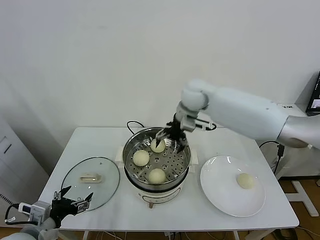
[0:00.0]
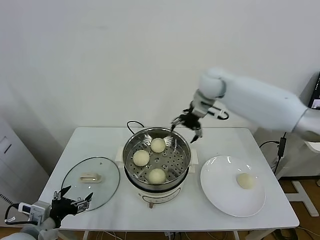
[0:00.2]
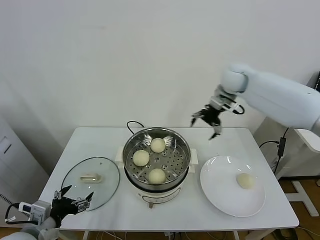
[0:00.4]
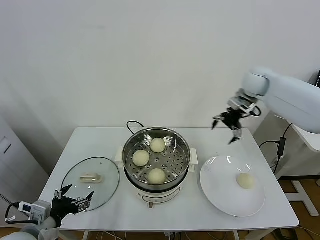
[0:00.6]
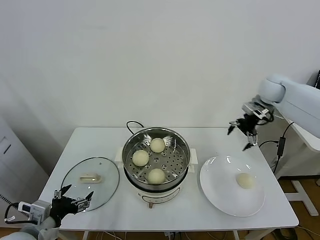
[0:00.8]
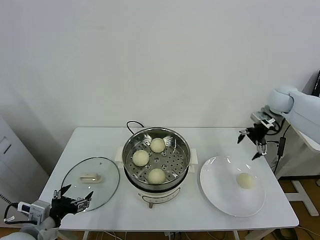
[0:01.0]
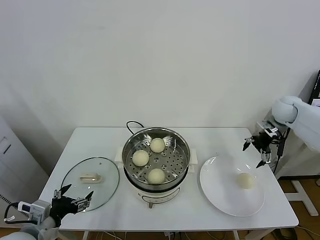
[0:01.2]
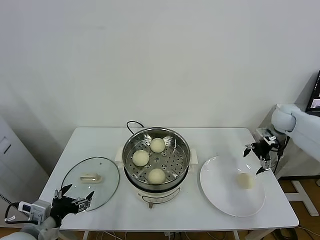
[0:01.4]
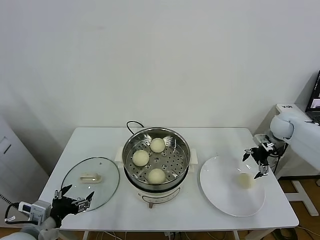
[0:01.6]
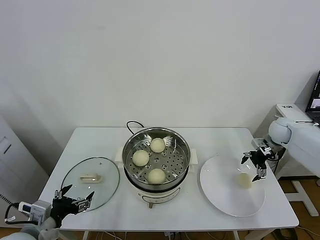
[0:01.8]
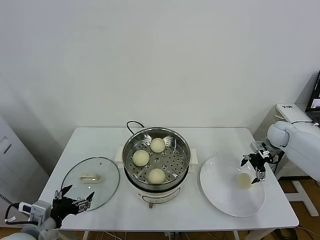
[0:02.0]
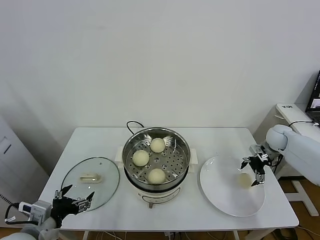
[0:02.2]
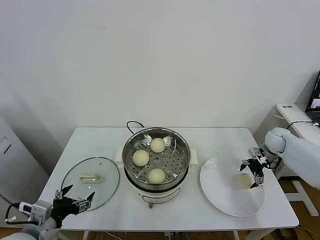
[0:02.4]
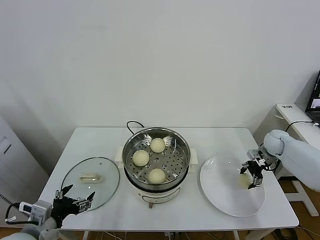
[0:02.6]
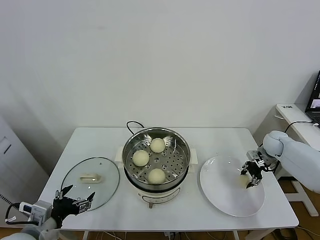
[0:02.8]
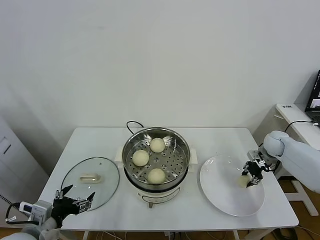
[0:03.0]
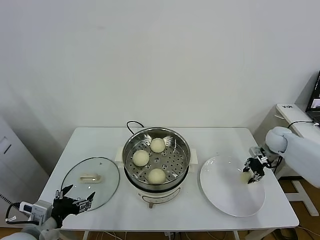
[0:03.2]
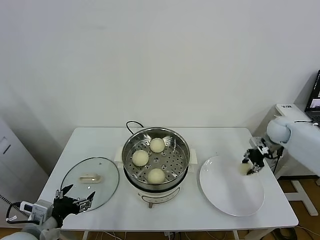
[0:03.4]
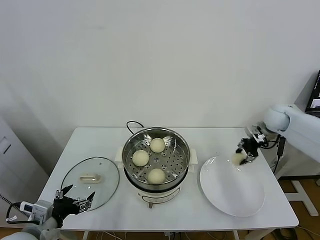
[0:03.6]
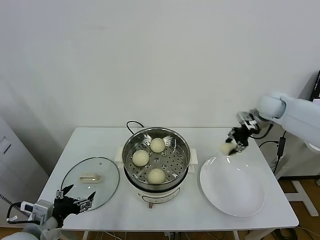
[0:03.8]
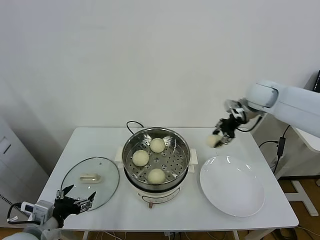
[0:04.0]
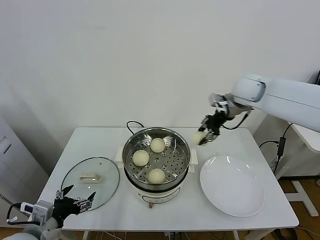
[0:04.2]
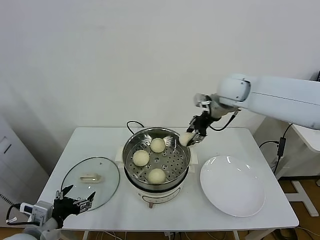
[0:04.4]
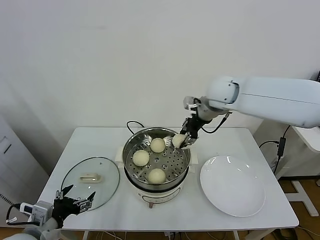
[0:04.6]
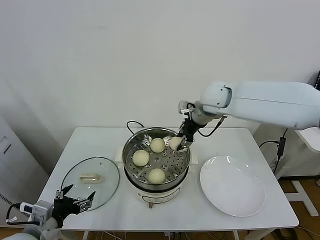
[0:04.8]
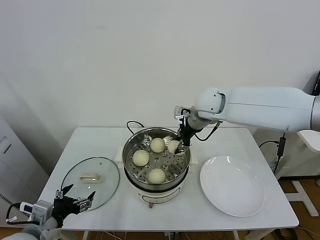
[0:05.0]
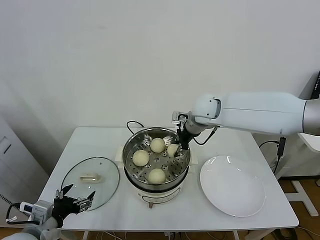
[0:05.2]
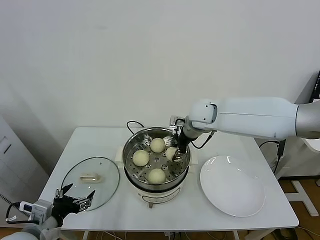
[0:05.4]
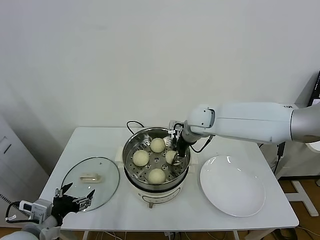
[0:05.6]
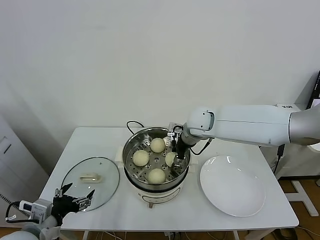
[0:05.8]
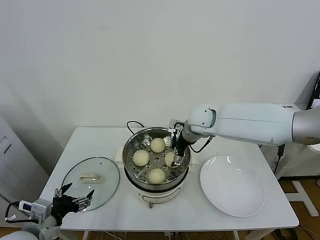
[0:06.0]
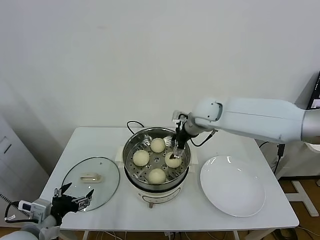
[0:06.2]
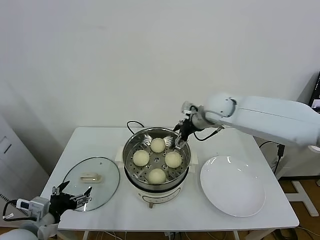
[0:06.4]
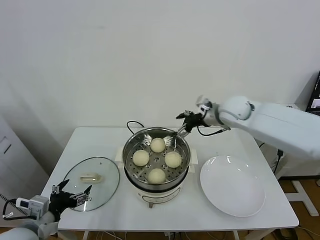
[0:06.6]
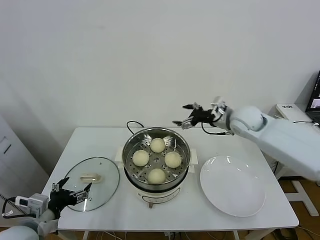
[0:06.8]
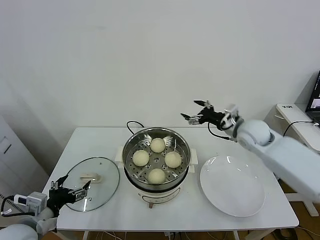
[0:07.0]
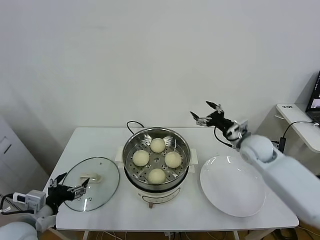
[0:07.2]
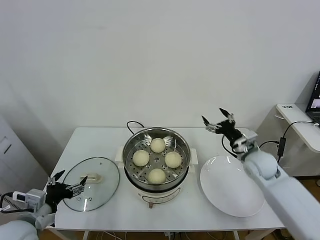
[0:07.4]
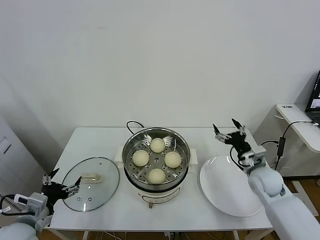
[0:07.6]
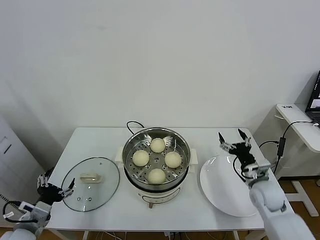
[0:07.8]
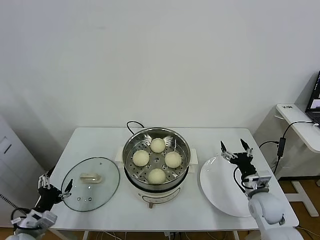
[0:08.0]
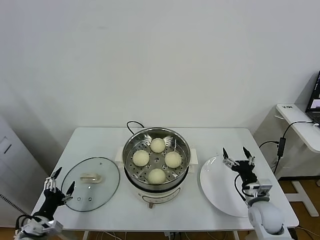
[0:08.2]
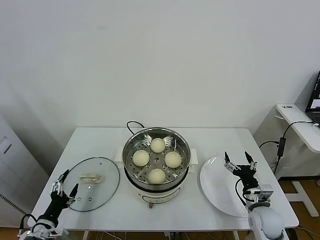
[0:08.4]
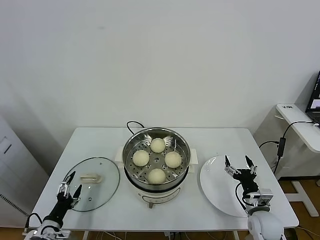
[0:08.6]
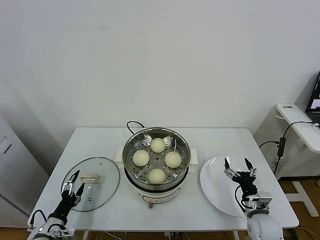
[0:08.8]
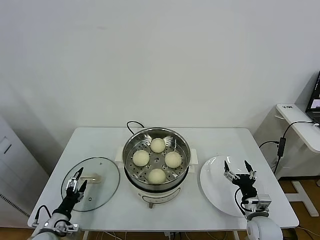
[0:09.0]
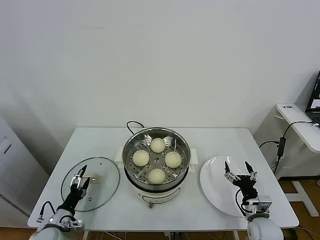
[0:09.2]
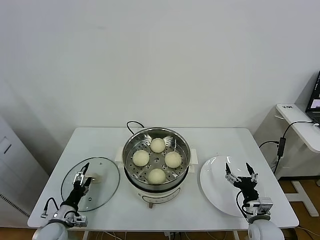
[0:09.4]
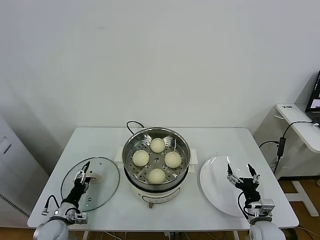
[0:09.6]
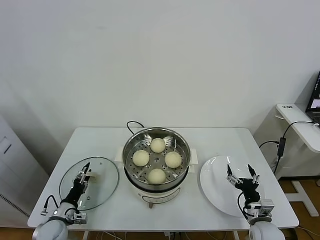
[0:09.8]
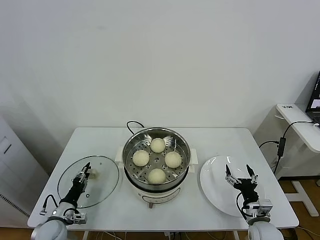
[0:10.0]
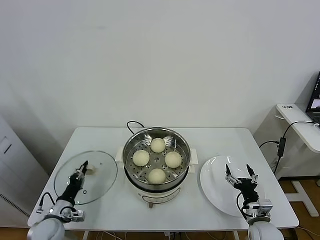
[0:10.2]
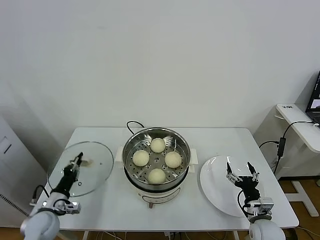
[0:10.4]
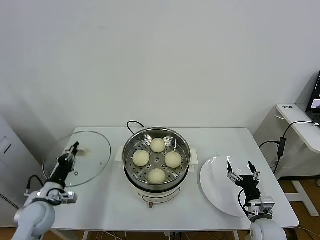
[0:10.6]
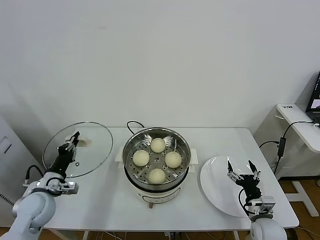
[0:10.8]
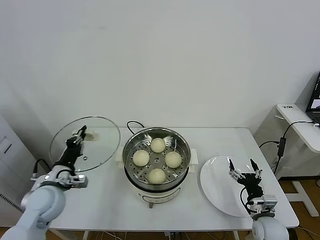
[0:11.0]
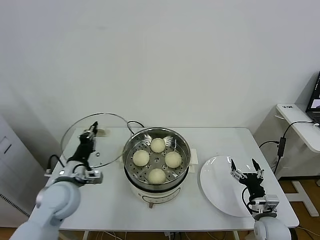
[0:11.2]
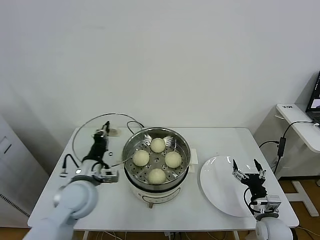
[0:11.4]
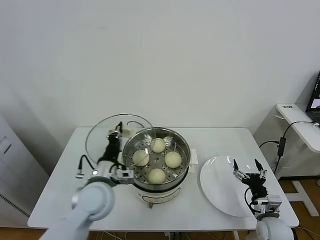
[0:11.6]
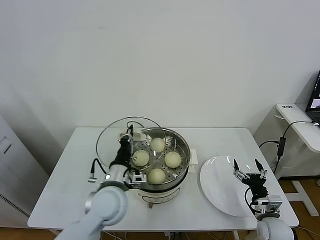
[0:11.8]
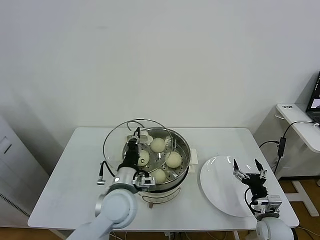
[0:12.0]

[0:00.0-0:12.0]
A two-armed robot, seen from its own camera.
Task of the whole recording: take steamed baozi put them in steamer.
Step, 0:00.0 to 0:02.6: Grasp the baozi in the plate with right gripper.
Step, 0:03.0 to 0:06.0: Place the baozi on the steamer with right gripper.
Step, 0:06.2 to 0:10.2: Grasp the pot lid with left gripper.
0:00.0 to 0:01.6: The right gripper heads to the right, covering roughly 35 cm.
0:01.6 to 0:03.0: The right gripper travels downward by approximately 10 cm, and closes its fingers.
0:03.0 to 0:04.4: The right gripper heads upward and to the left, covering about 35 cm.
0:04.4 to 0:06.0: The right gripper is displaced downward and to the left by about 15 cm, and opens.
0:06.0 to 0:07.6: The right gripper is displaced to the right, downward and backward by some 30 cm.
0:07.6 to 0:09.0: The right gripper moves backward and downward, approximately 15 cm. Meanwhile the left gripper is displaced downward by approximately 20 cm.
0:09.0 to 0:10.4: The left gripper shifts some 5 cm forward, and closes.
0:10.4 to 0:12.0: The left gripper goes some 30 cm to the right and upward.

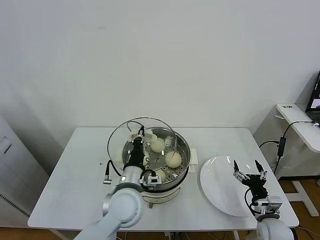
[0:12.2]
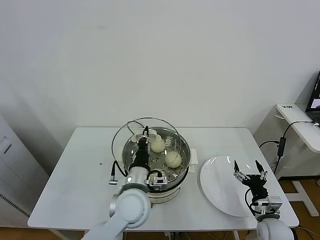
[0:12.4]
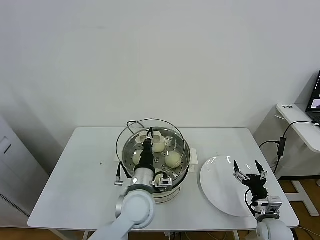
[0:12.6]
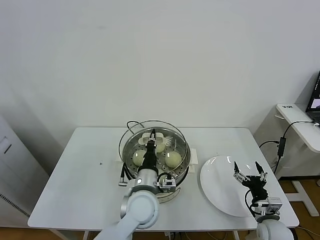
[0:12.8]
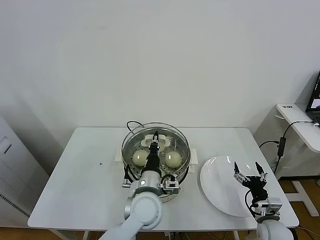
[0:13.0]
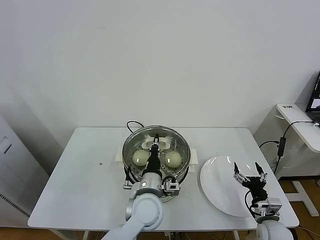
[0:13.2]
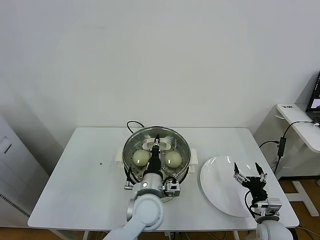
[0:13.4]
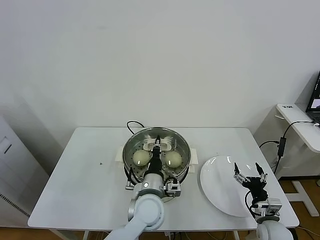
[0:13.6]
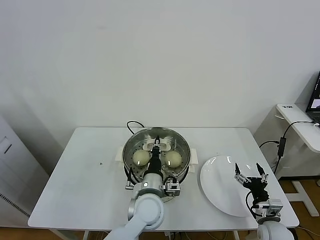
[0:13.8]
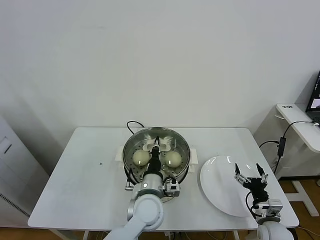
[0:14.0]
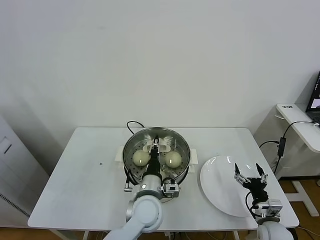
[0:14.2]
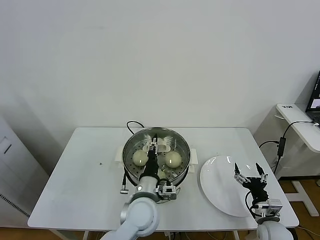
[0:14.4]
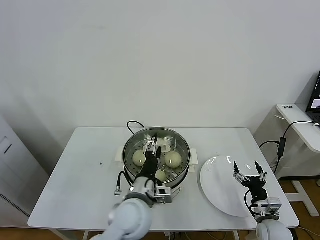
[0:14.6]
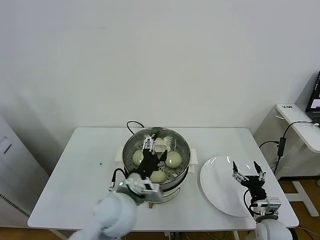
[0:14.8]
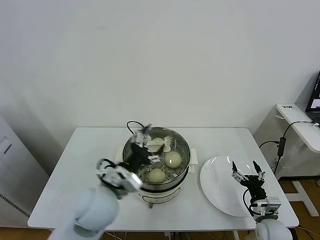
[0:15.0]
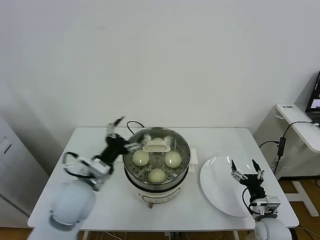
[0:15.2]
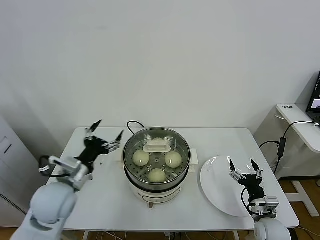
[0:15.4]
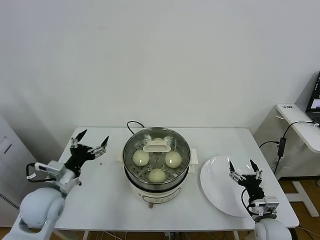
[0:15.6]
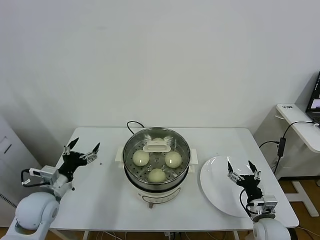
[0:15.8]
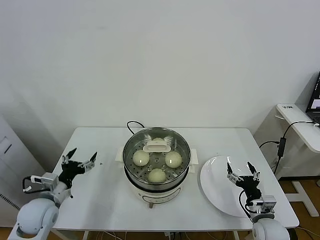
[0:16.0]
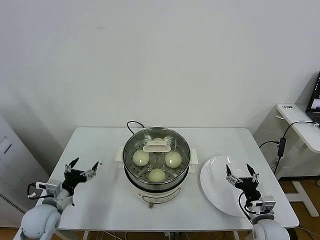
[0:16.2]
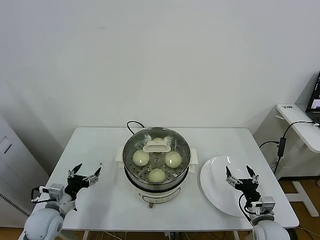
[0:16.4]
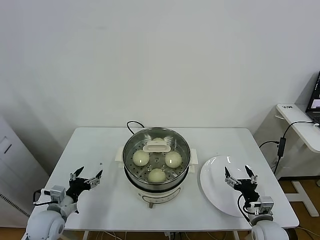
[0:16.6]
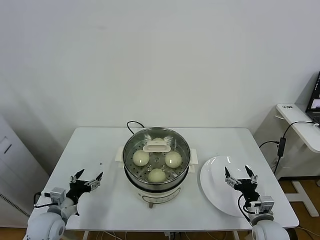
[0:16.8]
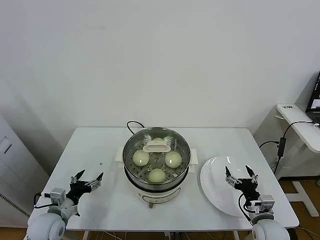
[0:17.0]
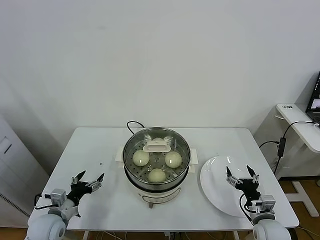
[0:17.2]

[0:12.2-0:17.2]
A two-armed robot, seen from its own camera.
Task of the whole recording: take steamed baozi put them in steamer.
Step, 0:12.2 to 0:14.8: Place the pot lid on the steamer with left gripper.
0:12.2 to 0:13.8: The left gripper is displaced to the right by roughly 5 cm.
0:13.8 to 0:15.6: The left gripper goes approximately 25 cm to the left, and opens its fingers.
0:15.6 to 0:17.2: The left gripper travels downward by roughly 15 cm.

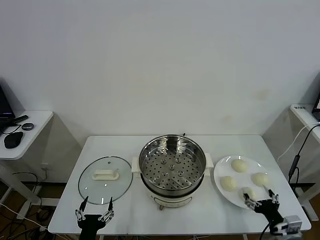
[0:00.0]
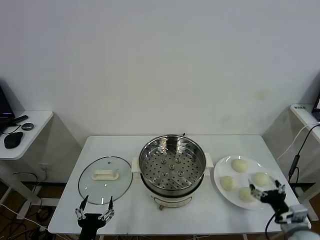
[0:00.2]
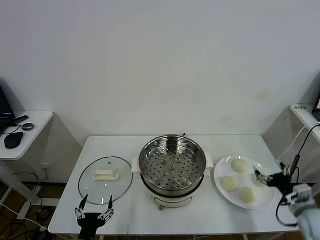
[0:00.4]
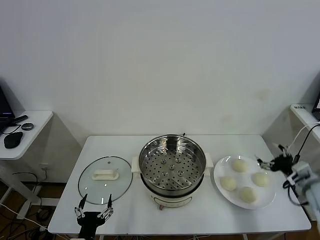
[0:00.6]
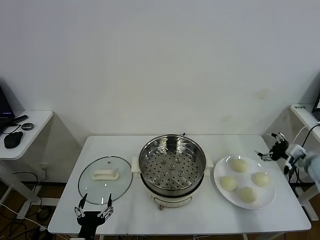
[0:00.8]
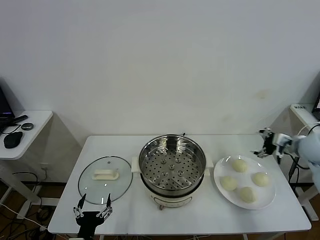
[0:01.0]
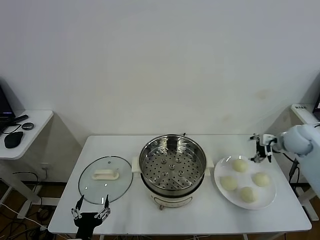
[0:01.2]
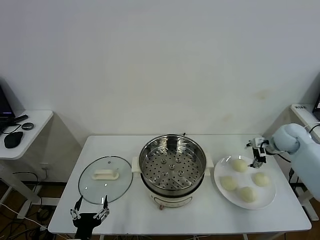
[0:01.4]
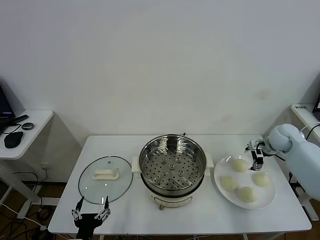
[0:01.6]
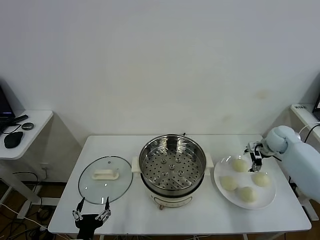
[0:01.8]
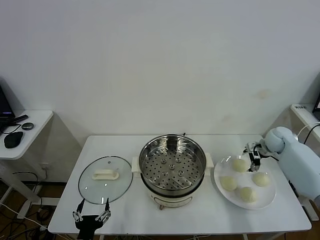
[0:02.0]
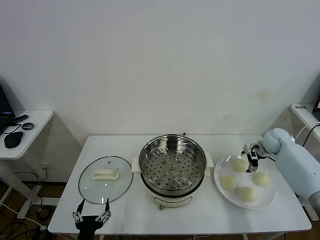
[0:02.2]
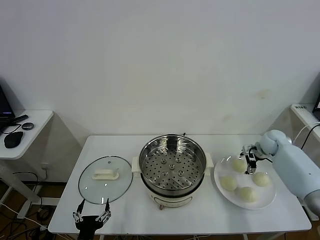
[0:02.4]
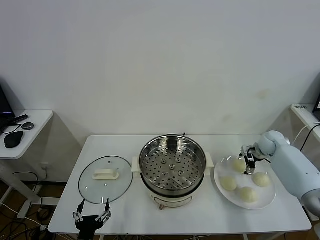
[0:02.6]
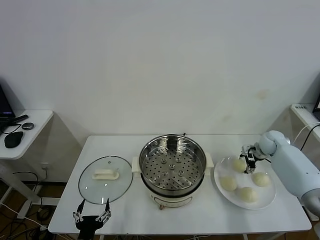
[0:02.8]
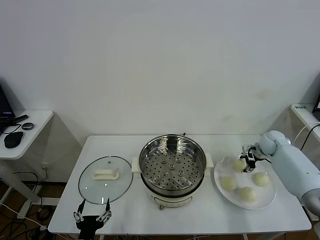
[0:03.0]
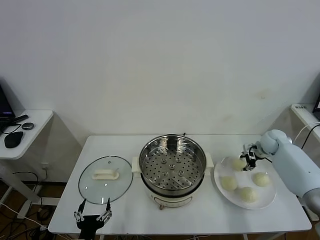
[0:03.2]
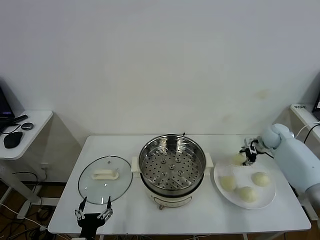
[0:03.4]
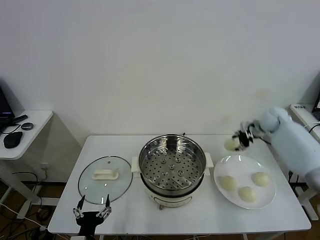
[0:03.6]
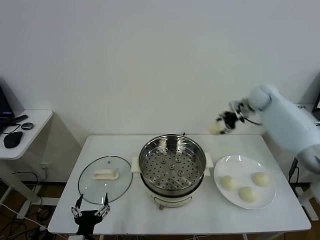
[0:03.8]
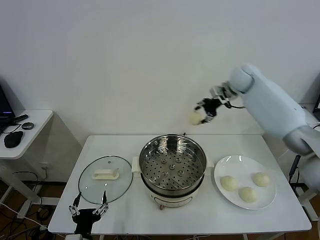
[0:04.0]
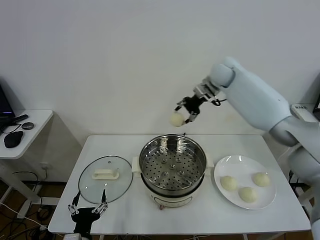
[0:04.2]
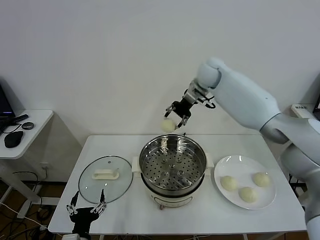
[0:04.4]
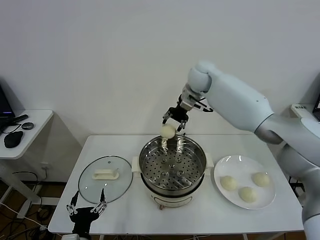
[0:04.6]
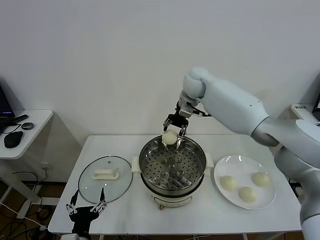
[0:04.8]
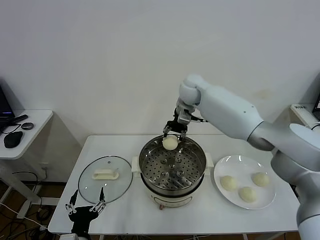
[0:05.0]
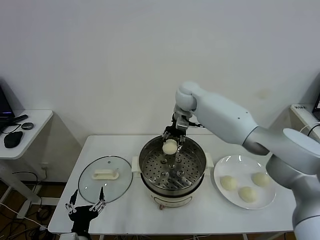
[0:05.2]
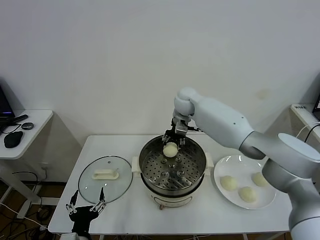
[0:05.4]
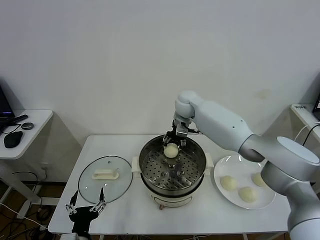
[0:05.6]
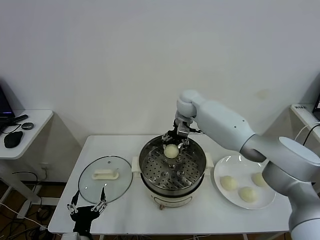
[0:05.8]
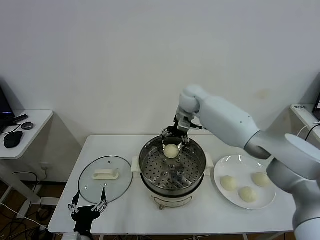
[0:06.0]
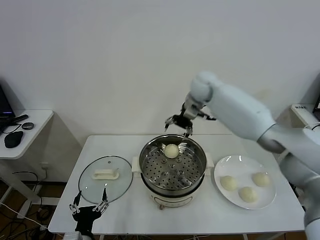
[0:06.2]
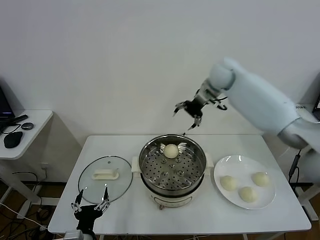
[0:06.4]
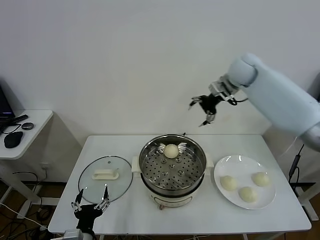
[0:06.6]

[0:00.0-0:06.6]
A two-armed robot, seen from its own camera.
Task of the whole recording: take steamed baozi put them in steamer.
Step, 0:00.0 to 0:03.0: Grasp the baozi in the plate with right gripper.
Step, 0:03.2 to 0:06.0: Place the baozi on the steamer with right gripper.
0:01.6 to 0:03.2: The right gripper shifts approximately 5 cm downward, and closes.
0:03.2 to 0:05.0: The right gripper moves to the left and upward, about 40 cm.
0:05.0 to 0:06.6: The right gripper travels to the right and upward by some 20 cm, and opens.
